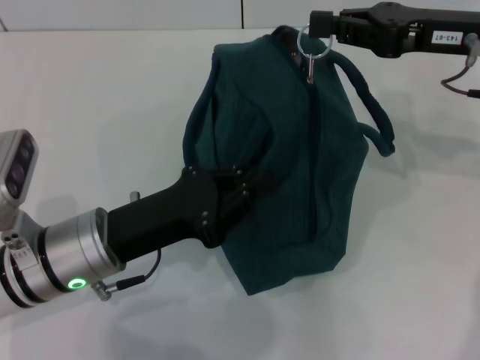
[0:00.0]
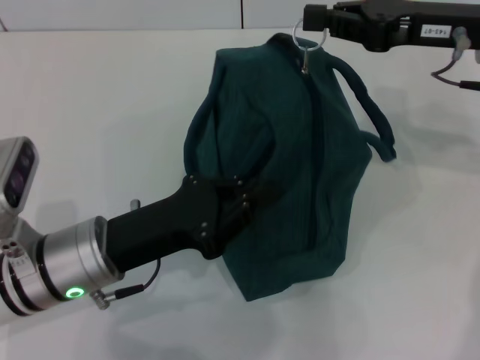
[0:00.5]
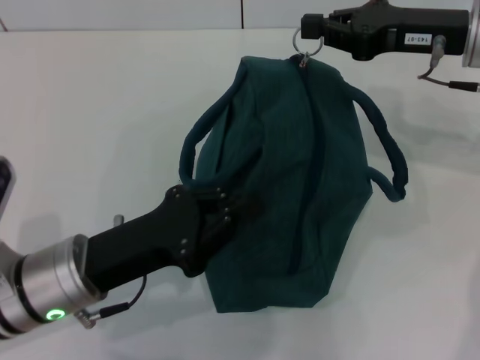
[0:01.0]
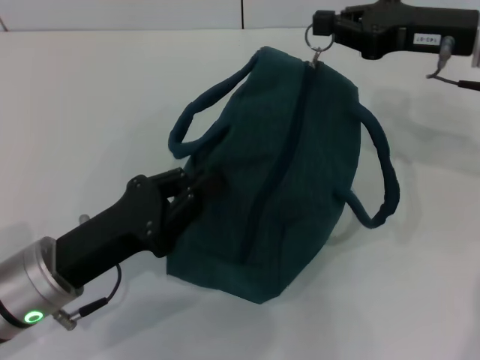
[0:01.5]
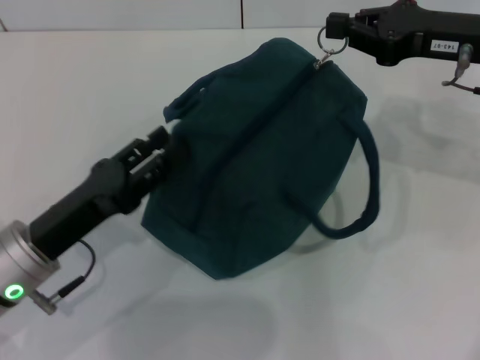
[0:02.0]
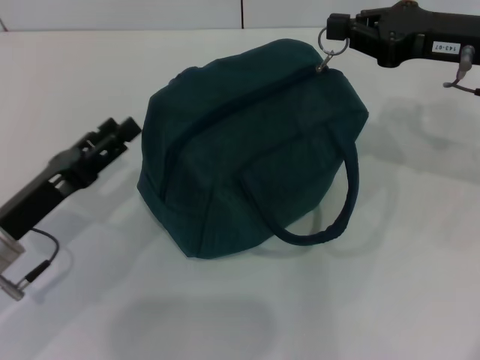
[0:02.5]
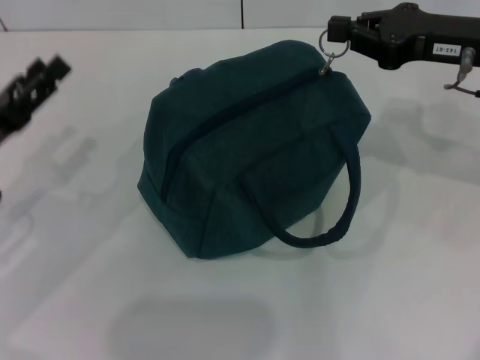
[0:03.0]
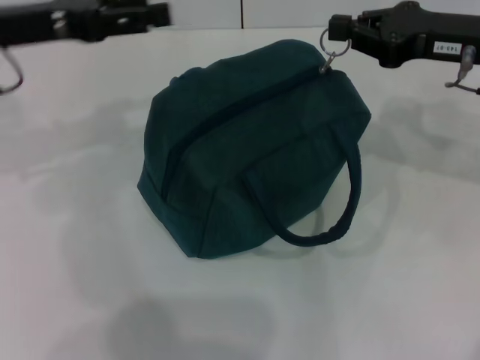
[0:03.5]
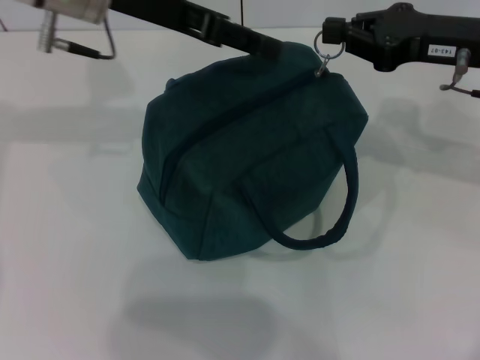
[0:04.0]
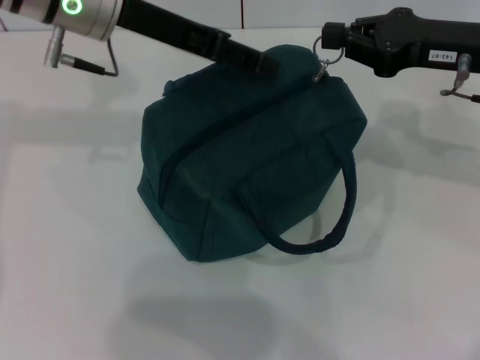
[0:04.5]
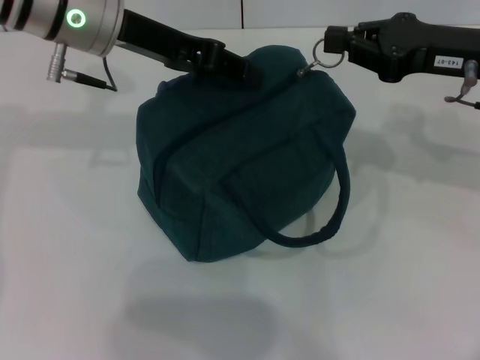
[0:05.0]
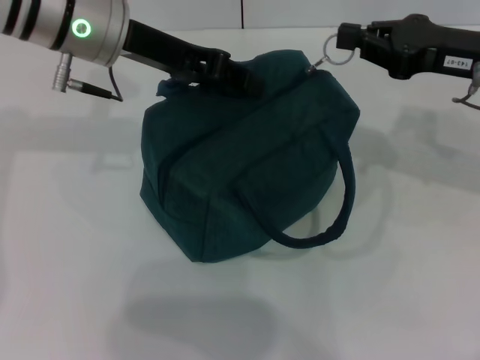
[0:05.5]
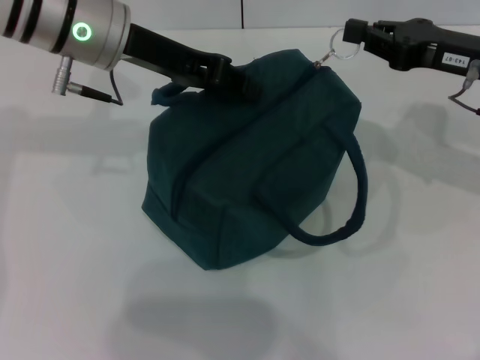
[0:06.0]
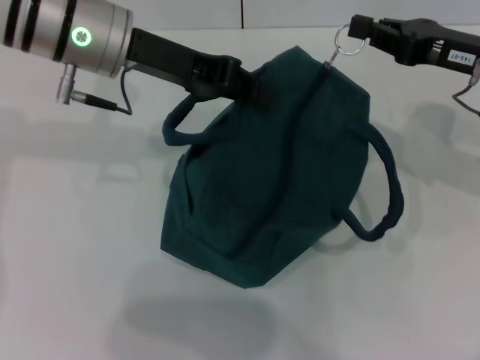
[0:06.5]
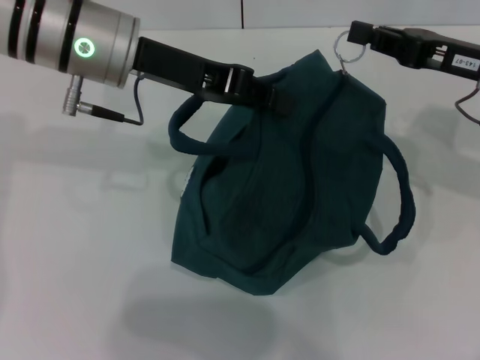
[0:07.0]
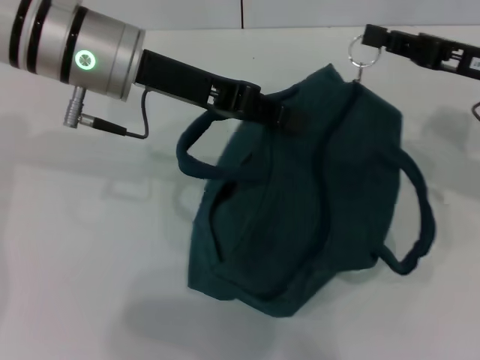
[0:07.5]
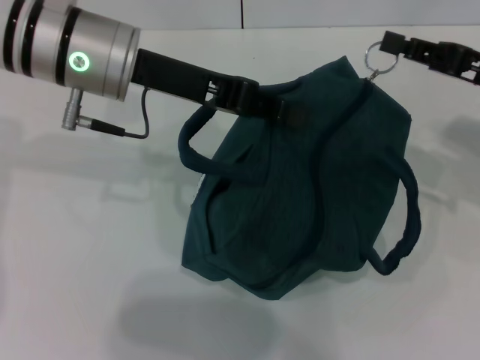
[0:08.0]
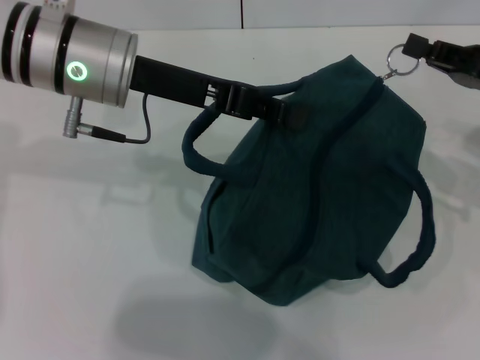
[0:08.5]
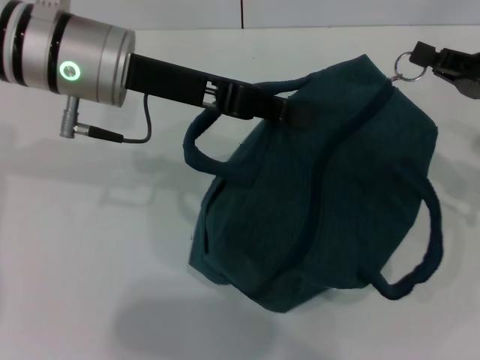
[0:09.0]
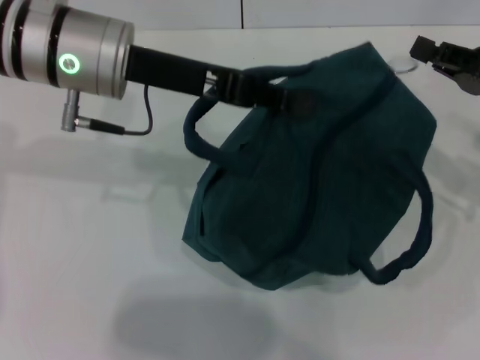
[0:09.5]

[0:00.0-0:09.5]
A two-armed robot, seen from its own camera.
0:00.0 to 0:02.0: The left gripper goes some 5 cm to the left.
0:02.0 to 0:04.0: The left gripper is displaced upward and forward by approximately 25 cm, and opens its fingers.
0:04.0 to 0:05.5: The left gripper closes up.
0:07.5 to 0:09.5: The right gripper changes place by some 5 cm.

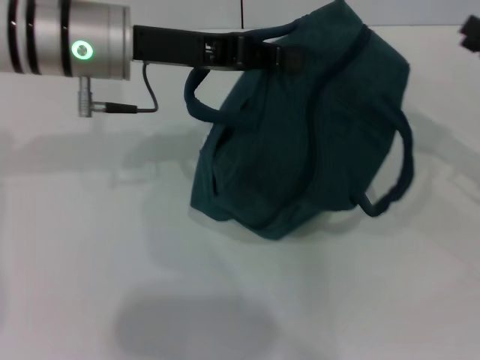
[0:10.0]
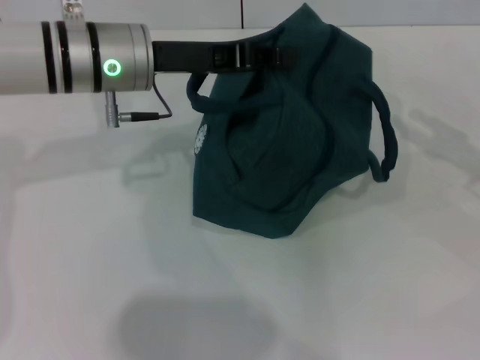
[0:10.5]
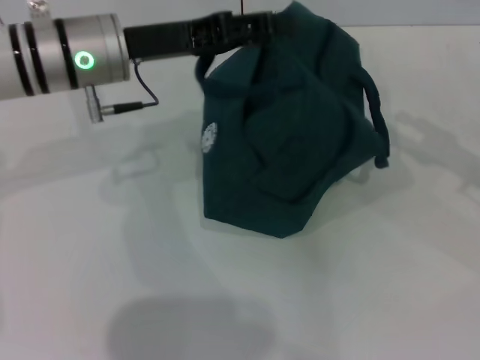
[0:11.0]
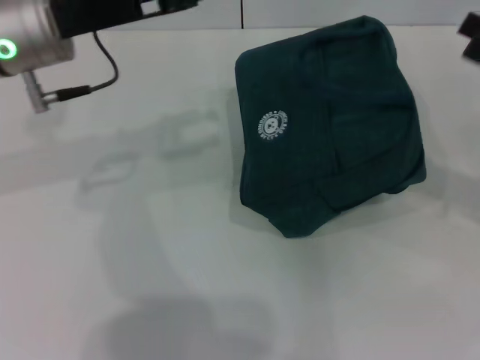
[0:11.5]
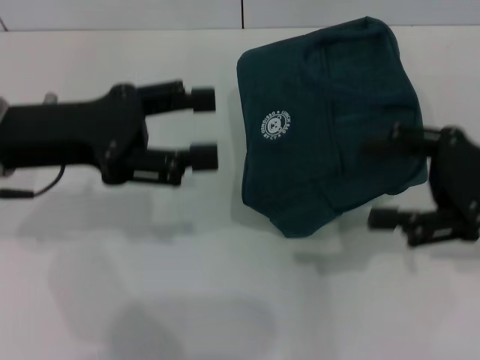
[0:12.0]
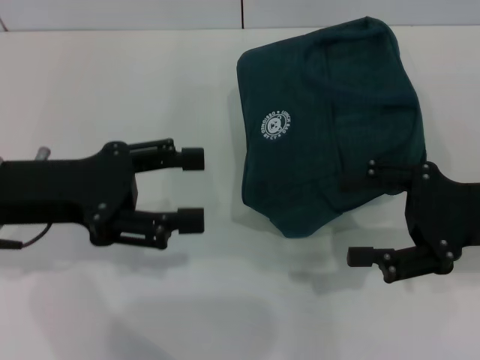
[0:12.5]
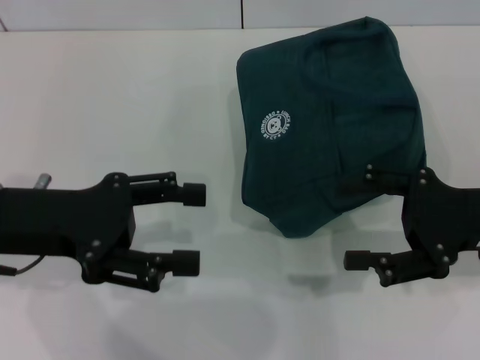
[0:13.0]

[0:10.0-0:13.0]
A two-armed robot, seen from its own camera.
Step, 0:10.0 to 0:11.0: Hold the lunch bag with your left hand.
0:10.0 to 0:11.5: The left gripper shifts by roughly 5 cm, and opens its fingers. The right gripper opens up.
0:11.5 to 0:13.0: The right gripper is displaced to the left by roughly 5 cm, while the left gripper heads backward, downward and to the left, covering some 15 cm.
